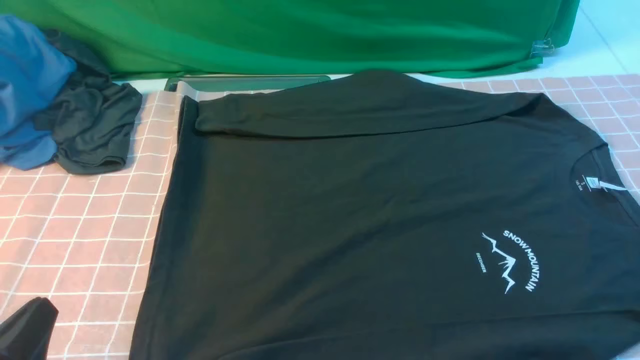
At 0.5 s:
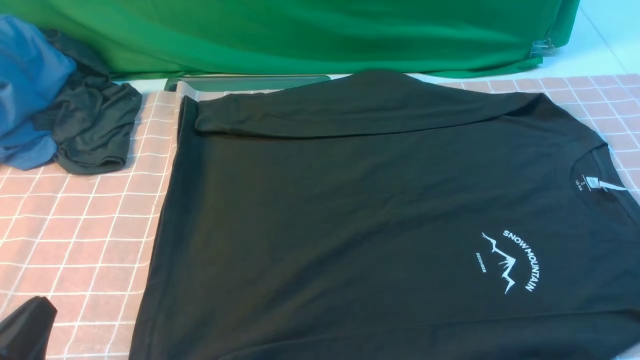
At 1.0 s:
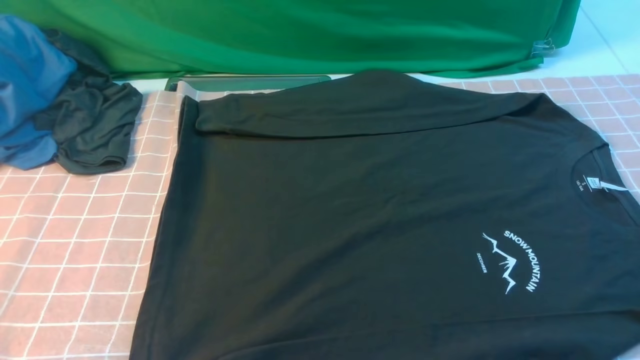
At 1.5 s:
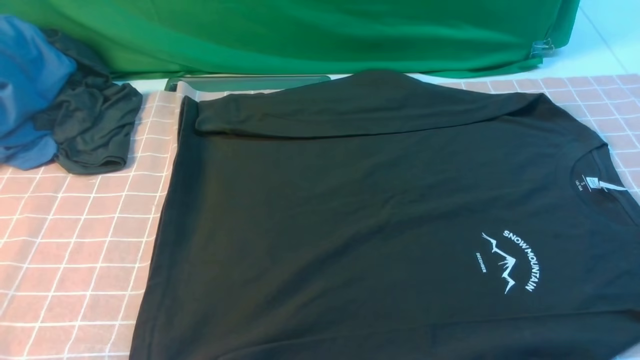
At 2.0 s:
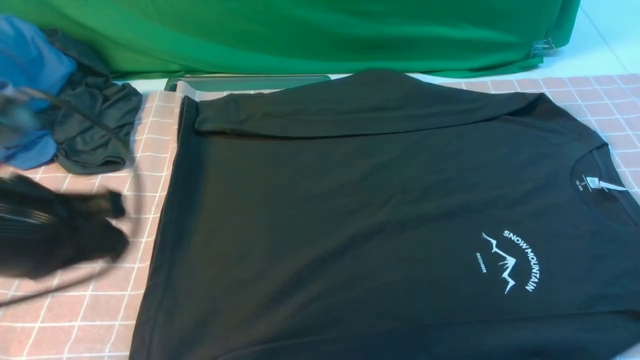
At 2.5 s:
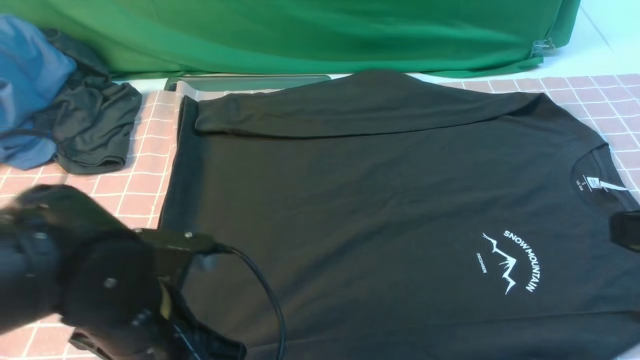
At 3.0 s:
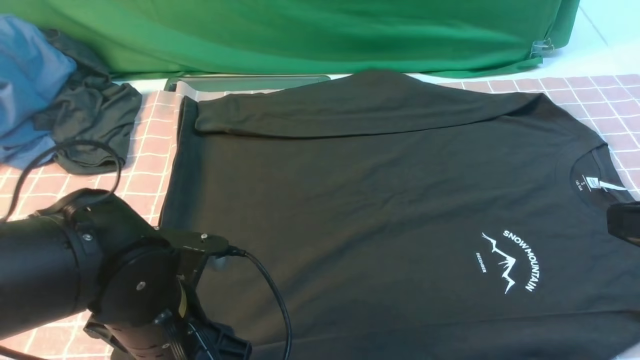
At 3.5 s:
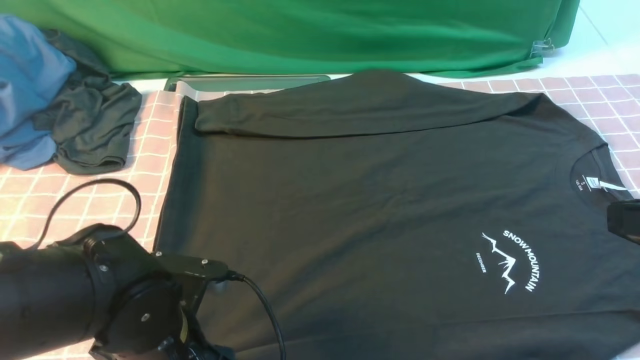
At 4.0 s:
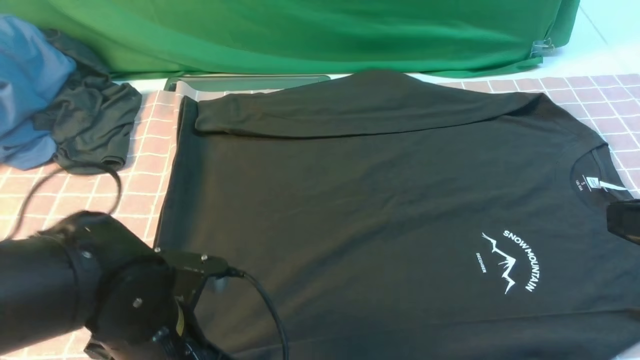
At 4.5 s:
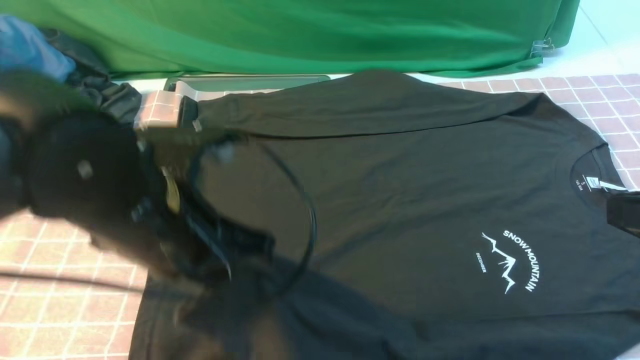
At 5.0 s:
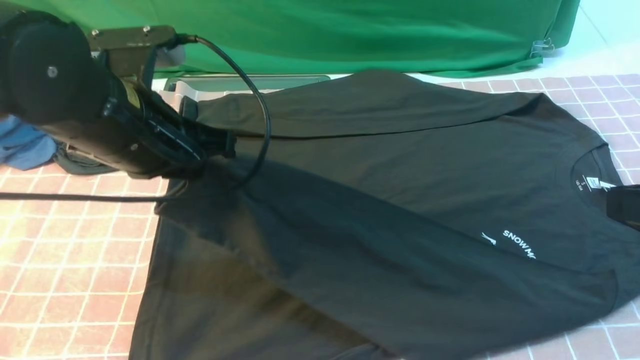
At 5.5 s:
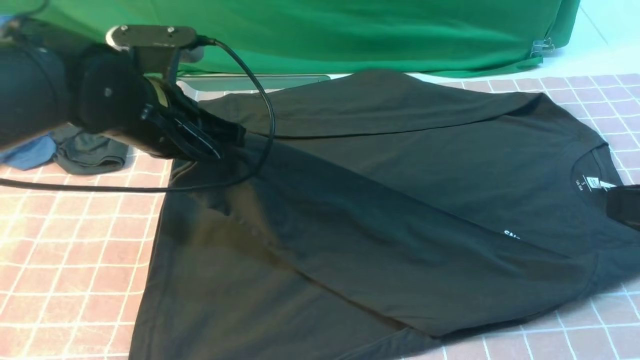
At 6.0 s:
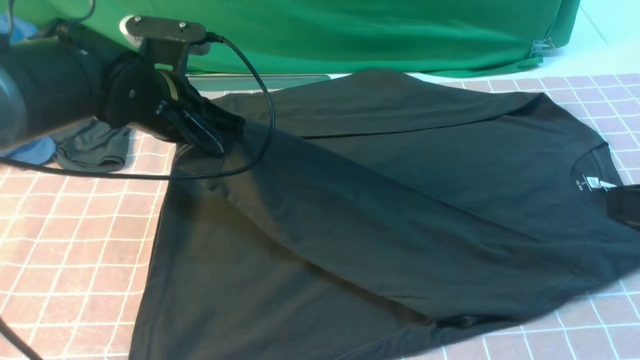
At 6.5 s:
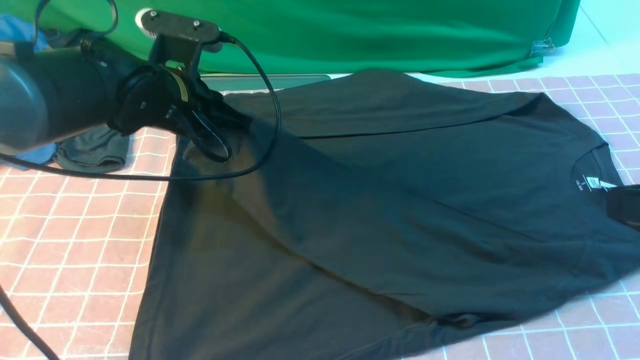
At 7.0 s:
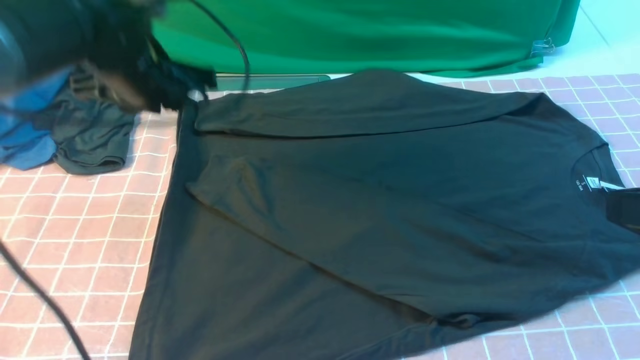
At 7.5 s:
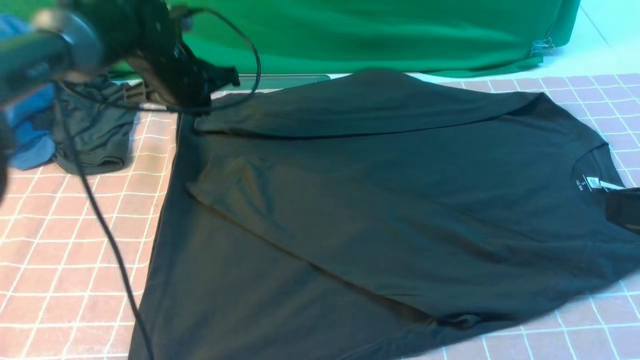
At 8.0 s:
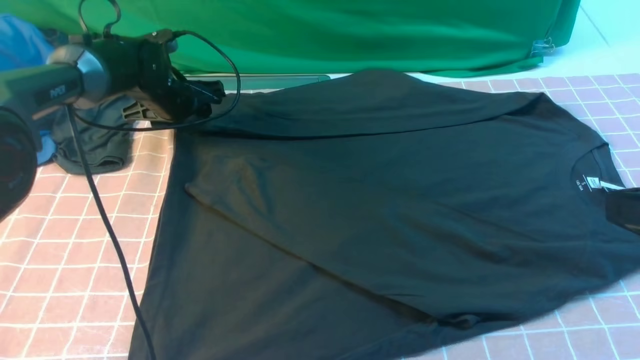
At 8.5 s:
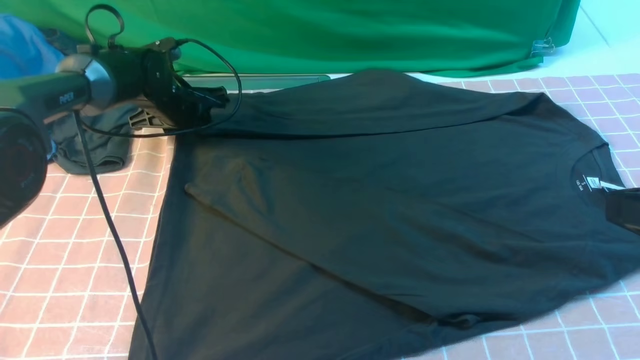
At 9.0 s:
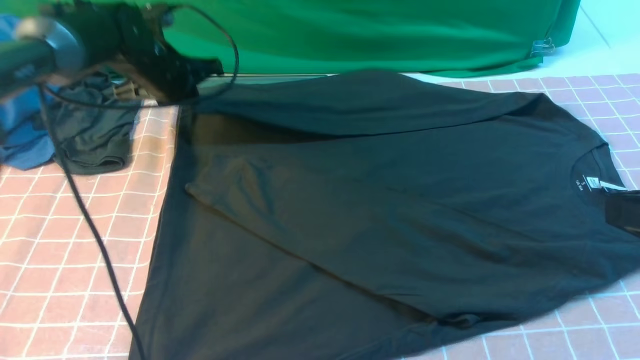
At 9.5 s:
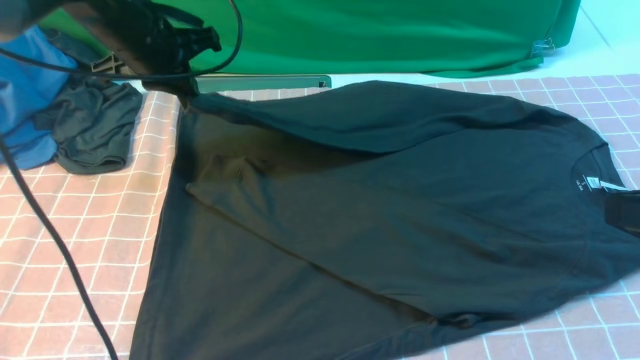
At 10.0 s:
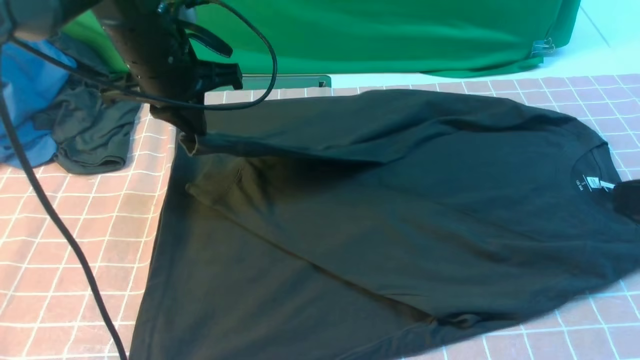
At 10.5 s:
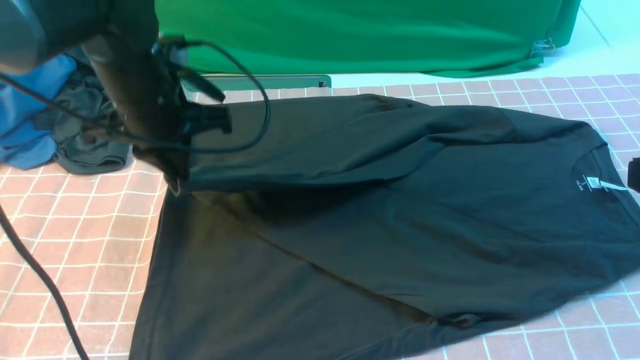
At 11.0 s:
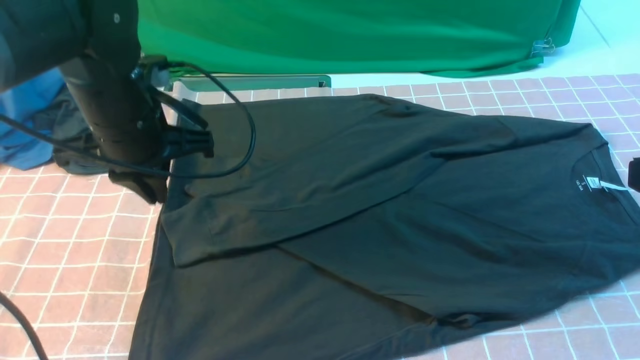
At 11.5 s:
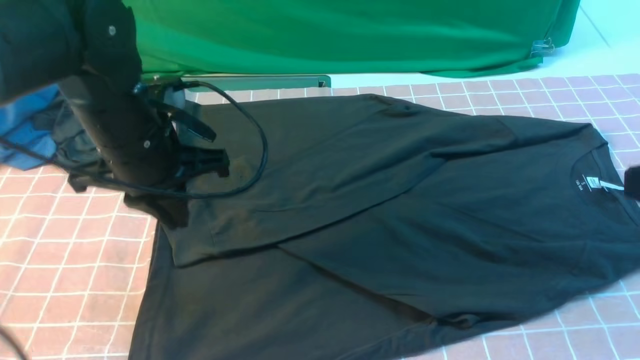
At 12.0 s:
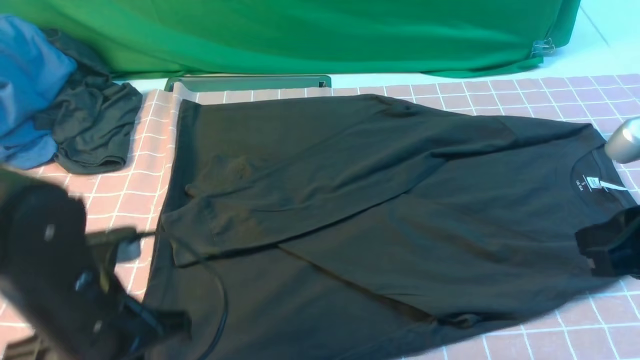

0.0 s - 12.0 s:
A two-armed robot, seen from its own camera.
Step, 0.0 s - 4.0 s: use the left arm to clamp the cuff closest to it.
Step, 4.5 s - 6.5 s: use the left arm to drag and place the cuff at the centered position on the left edge of the fabric.
Step, 7.0 s - 8.5 s: use the left arm to clamp the cuff farthest from it.
Step, 9.0 s - 10.5 s: use the left arm to drag and drop the cuff onto the cuff closest to the left arm.
0.0 s - 2.0 s: The left gripper shifts about 15 cm upward and forward.
2.0 s - 4.0 s: The right gripper is displaced forward by roughly 5 cm, while the left gripper is displaced downward and to the right by approximately 15 cm, and opens, then closes once more.
4.0 s - 6.0 s: The left gripper is displaced forward by about 20 cm.
6.0 s - 8.0 s: The left gripper heads forward, downward and to the left, covering some 20 cm, and opens its fingers.
8.0 s - 10.0 s: The left gripper goes roughly 15 cm upward and backward, and closes its fingers.
10.0 s - 12.0 s: The right gripper moves approximately 5 cm; the left gripper moves backward and downward, roughly 25 cm.

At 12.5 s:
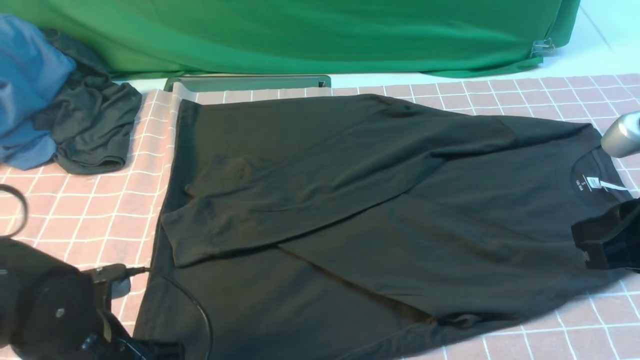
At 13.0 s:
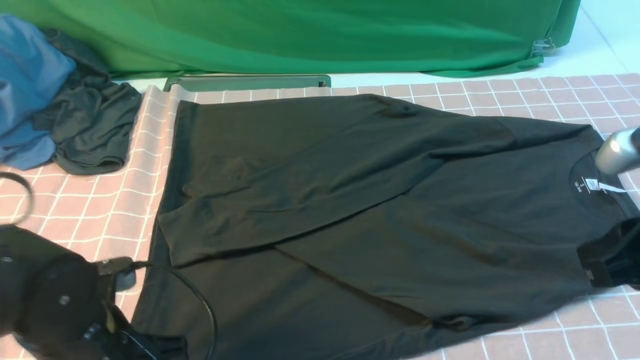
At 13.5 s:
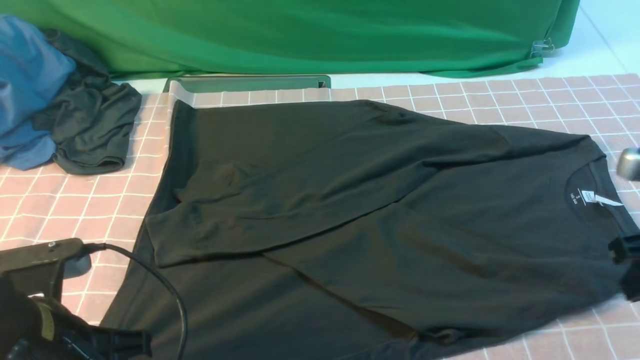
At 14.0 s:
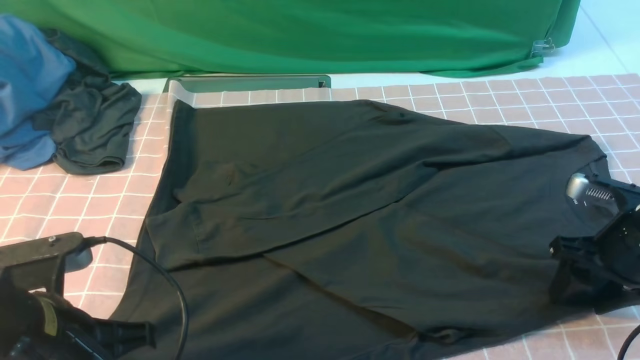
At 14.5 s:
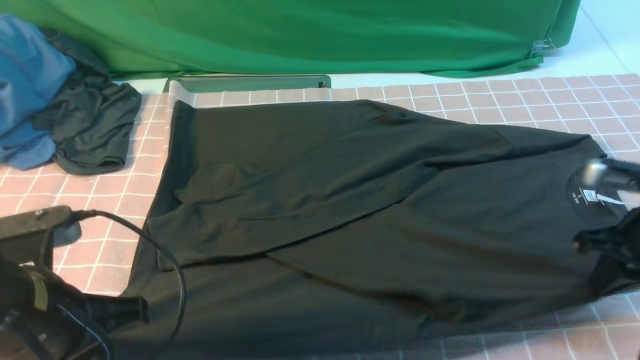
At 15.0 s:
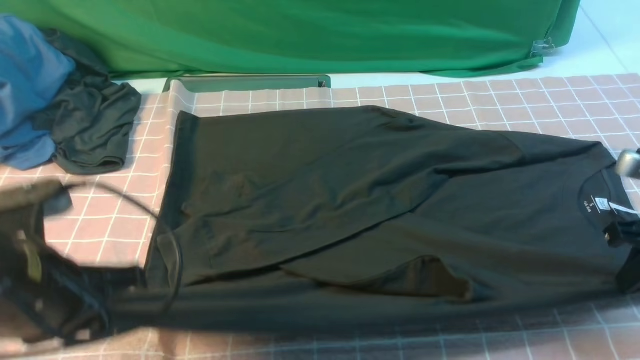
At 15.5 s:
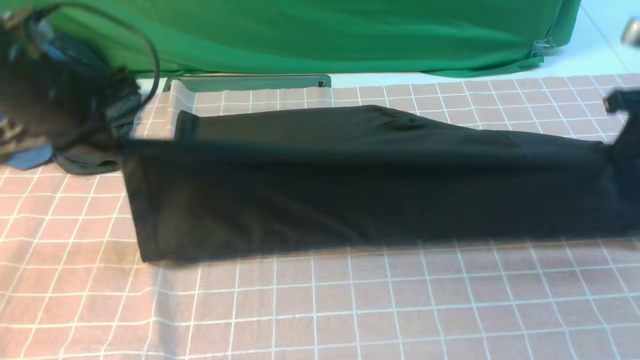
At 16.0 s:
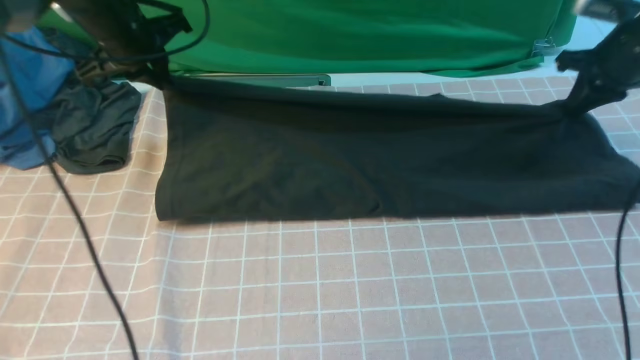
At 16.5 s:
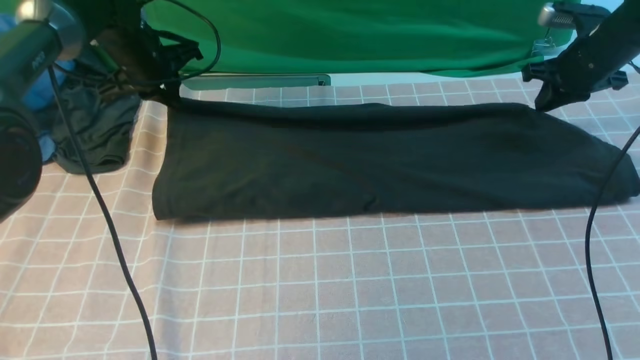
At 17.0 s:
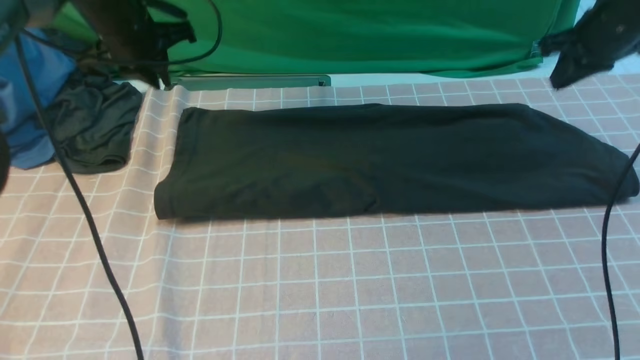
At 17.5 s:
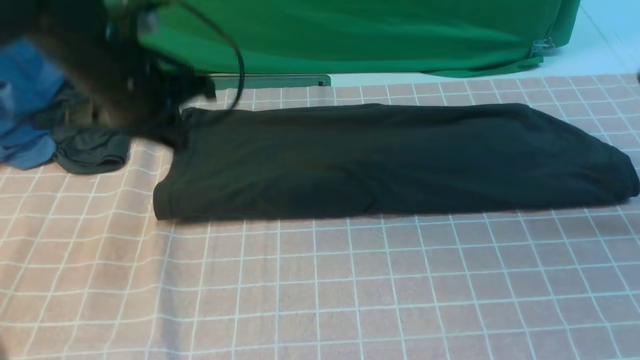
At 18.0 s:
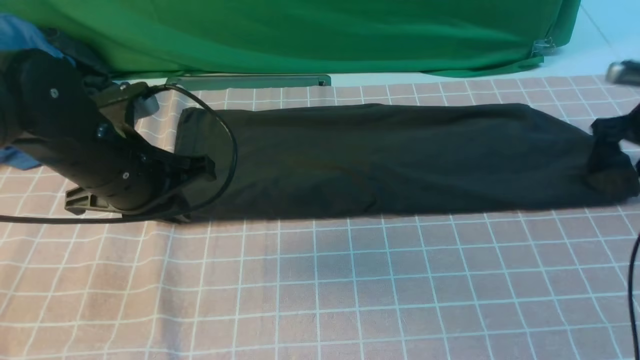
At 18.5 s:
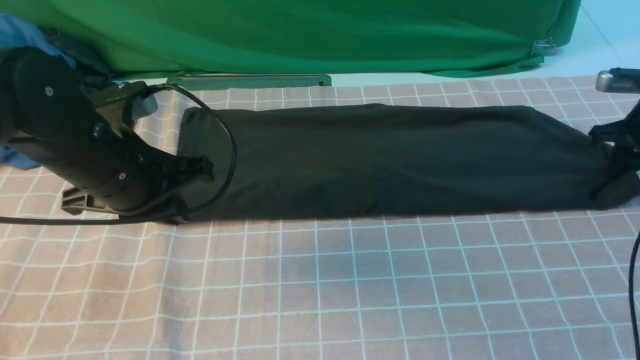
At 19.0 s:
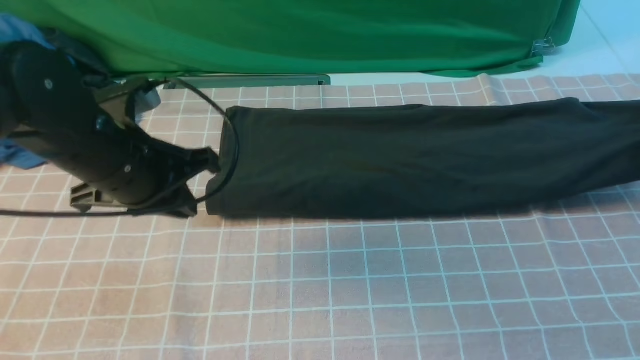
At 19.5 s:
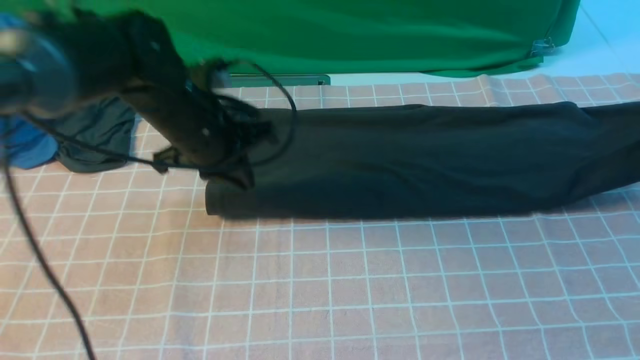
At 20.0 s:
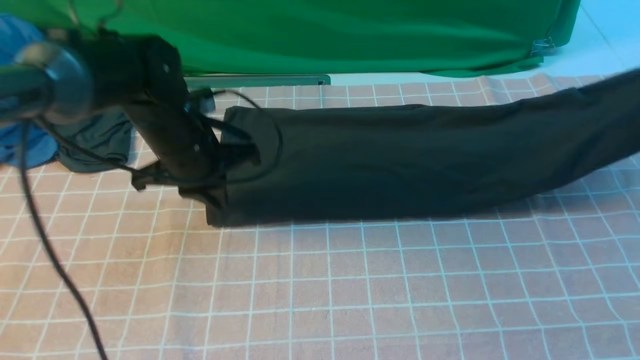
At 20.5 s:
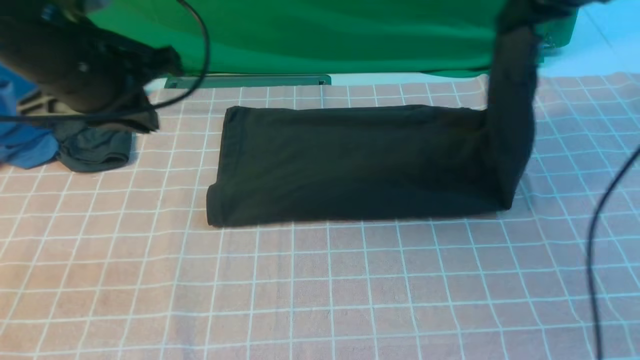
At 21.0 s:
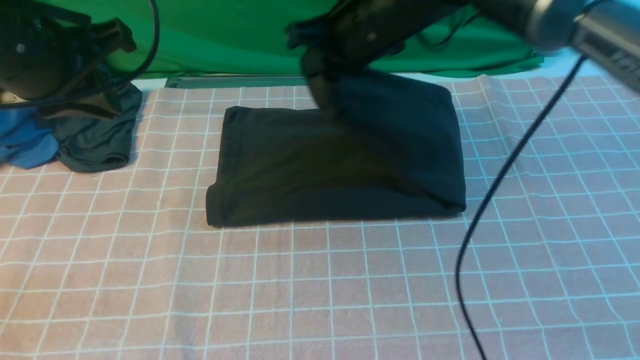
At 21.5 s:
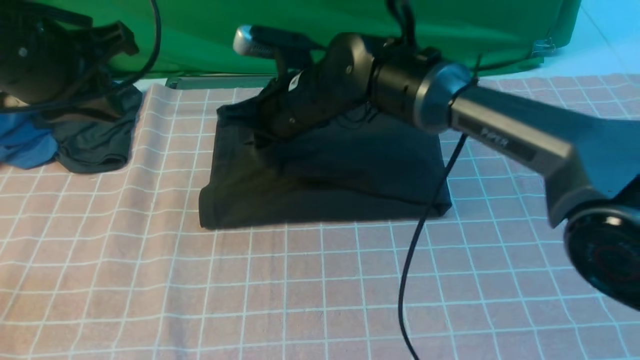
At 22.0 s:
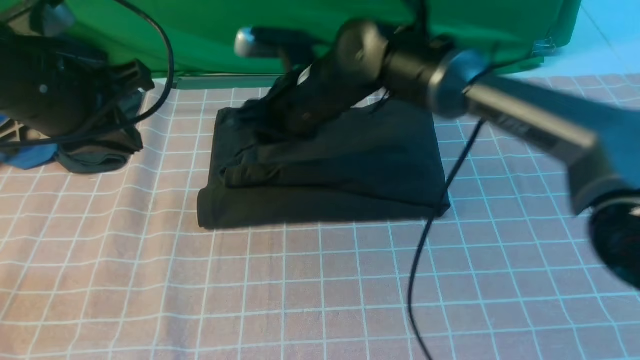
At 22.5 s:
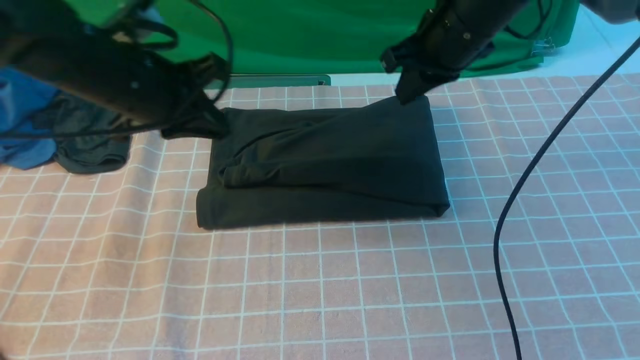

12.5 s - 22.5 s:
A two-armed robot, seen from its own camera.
Step, 14.5 s - 16.5 s: use both arms to drag the lower edge of the fabric forward and fold it over the upper edge.
Step, 17.0 s - 18.5 s: use the right arm to clamp the right edge of the fabric.
Step, 19.0 s - 22.0 s: use the right arm to drag the right edge of the fabric to the left and folds it over the left edge.
12.5 s - 14.5 s: The right gripper shifts some 15 cm downward, forward and to the right, and opens, then closes once more, while the left gripper travels upward by some 10 cm, and closes up.
14.5 s - 16.5 s: The right gripper shifts about 25 cm forward; the left gripper is displaced forward by some 35 cm.
16.5 s - 18.5 s: The right gripper goes some 10 cm to the right and backward, moves about 5 cm upward and comes back, and opens, then closes again; the left gripper goes approximately 25 cm backward.
18.5 s - 20.5 s: The left gripper goes some 10 cm upward. The right gripper goes roughly 25 cm to the left and upward.
20.5 s - 22.5 s: The left gripper ends up some 10 cm from where it was; the right gripper shifts some 10 cm to the left and downward, and opens, then closes again.
